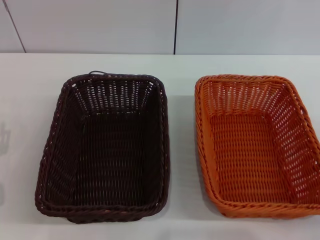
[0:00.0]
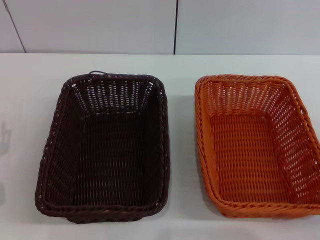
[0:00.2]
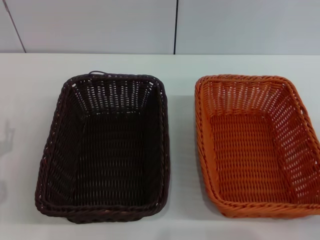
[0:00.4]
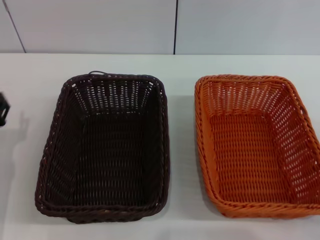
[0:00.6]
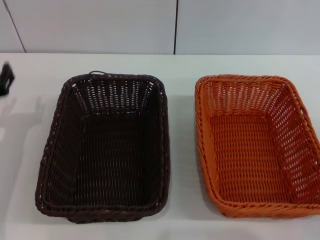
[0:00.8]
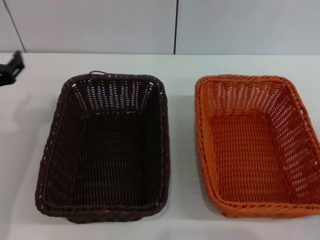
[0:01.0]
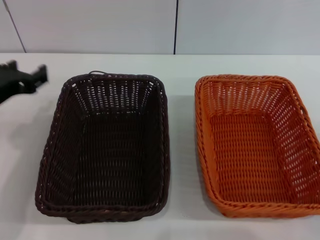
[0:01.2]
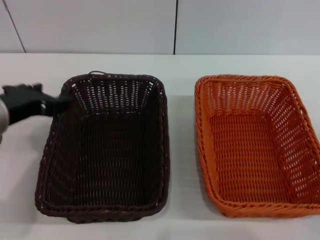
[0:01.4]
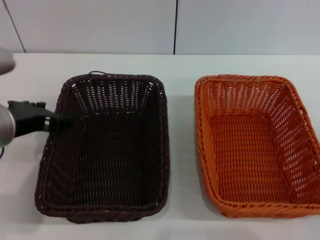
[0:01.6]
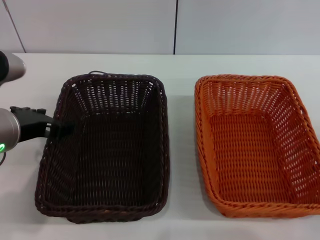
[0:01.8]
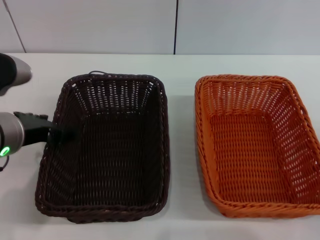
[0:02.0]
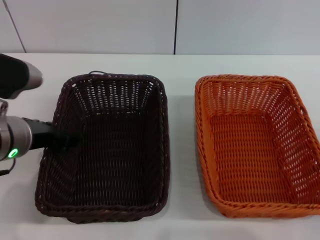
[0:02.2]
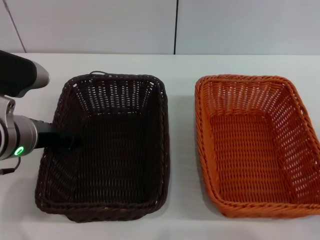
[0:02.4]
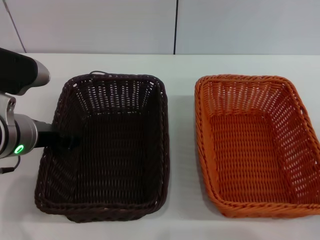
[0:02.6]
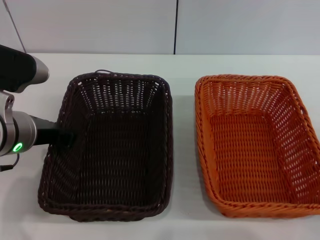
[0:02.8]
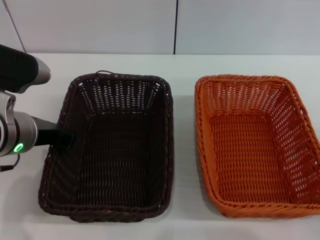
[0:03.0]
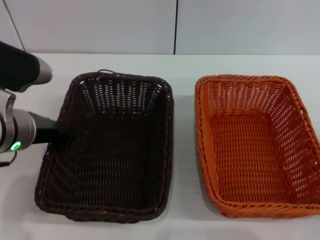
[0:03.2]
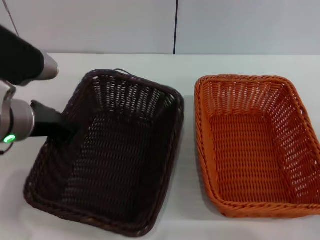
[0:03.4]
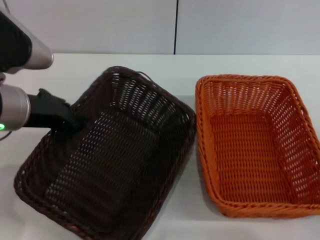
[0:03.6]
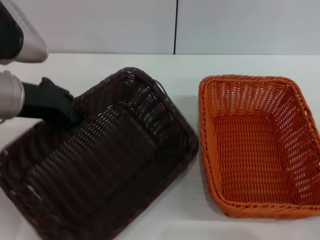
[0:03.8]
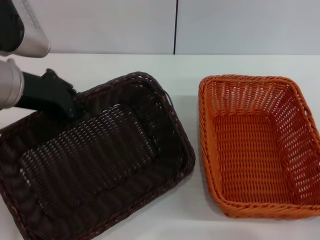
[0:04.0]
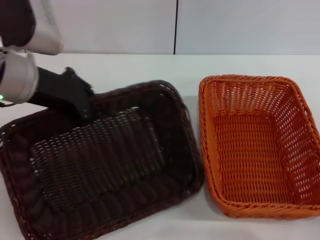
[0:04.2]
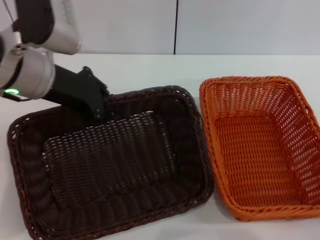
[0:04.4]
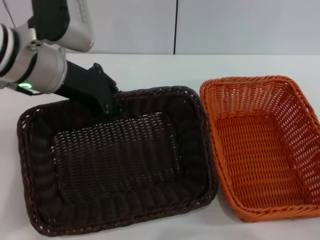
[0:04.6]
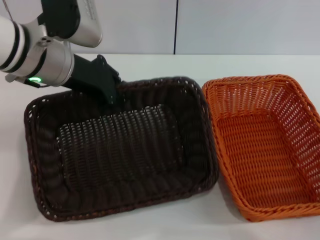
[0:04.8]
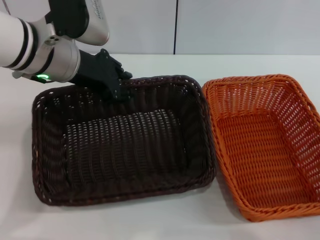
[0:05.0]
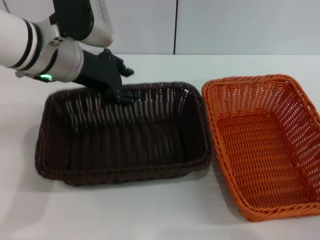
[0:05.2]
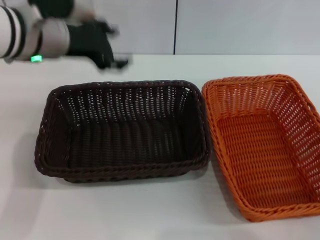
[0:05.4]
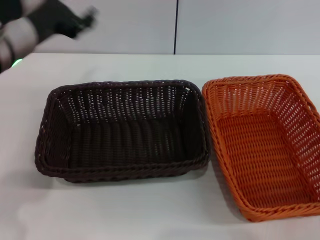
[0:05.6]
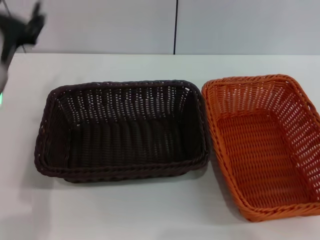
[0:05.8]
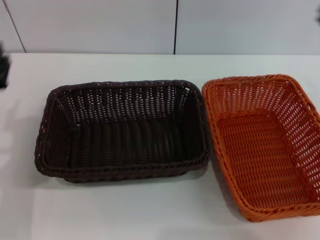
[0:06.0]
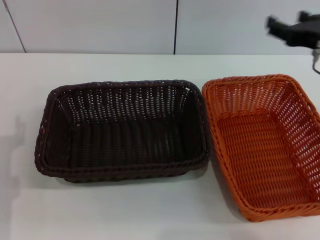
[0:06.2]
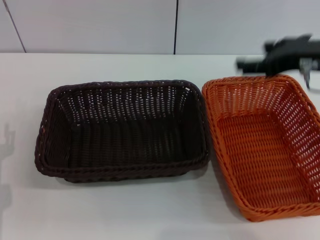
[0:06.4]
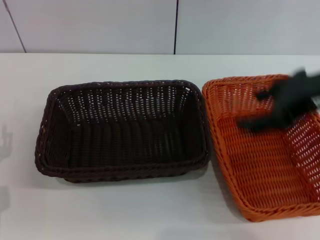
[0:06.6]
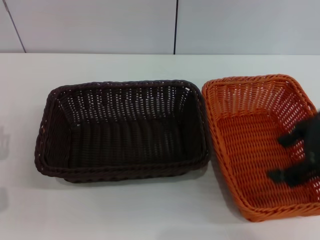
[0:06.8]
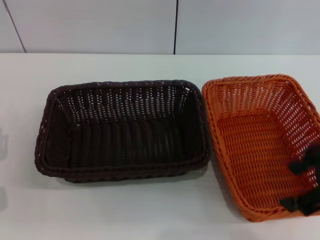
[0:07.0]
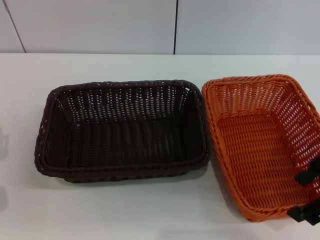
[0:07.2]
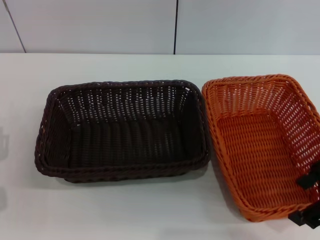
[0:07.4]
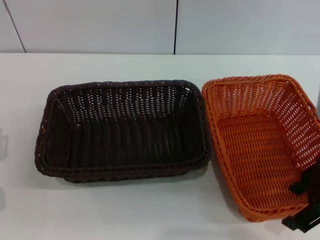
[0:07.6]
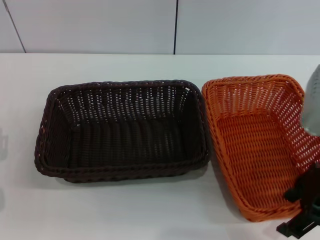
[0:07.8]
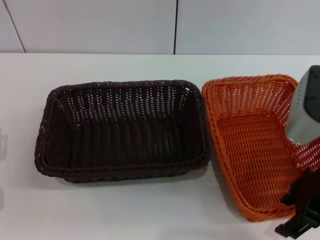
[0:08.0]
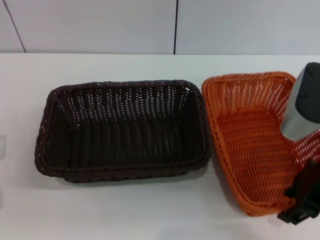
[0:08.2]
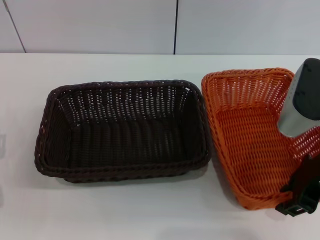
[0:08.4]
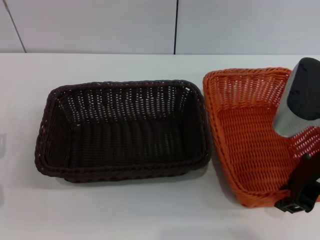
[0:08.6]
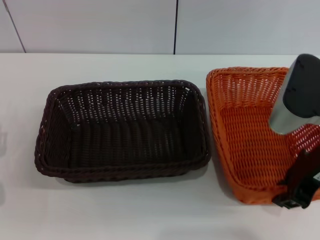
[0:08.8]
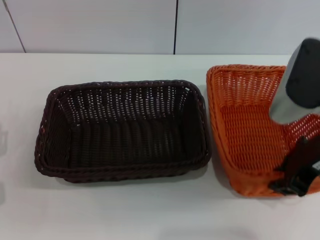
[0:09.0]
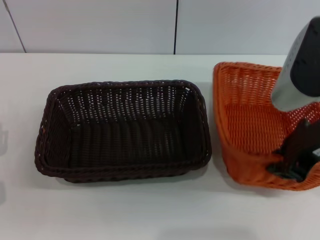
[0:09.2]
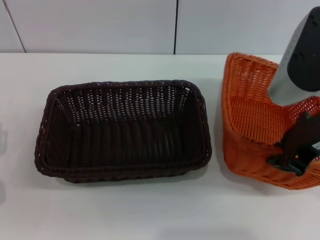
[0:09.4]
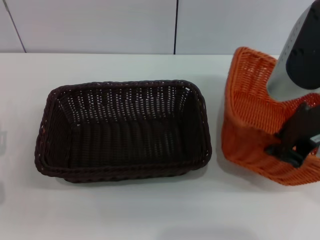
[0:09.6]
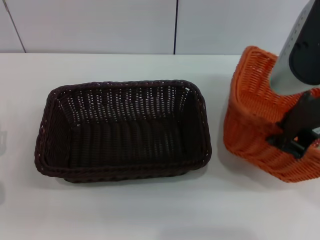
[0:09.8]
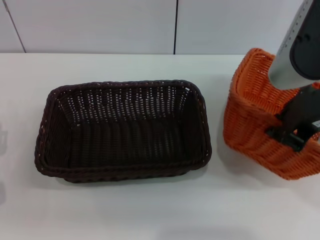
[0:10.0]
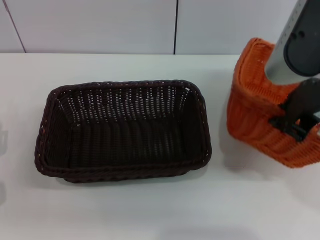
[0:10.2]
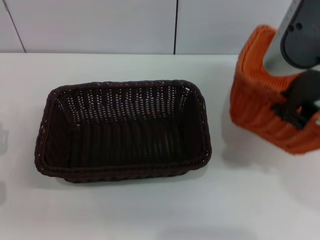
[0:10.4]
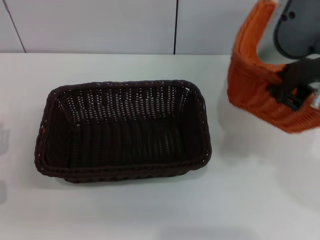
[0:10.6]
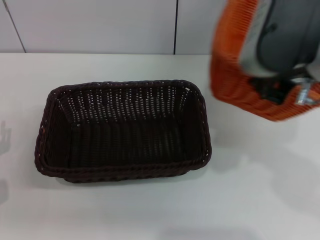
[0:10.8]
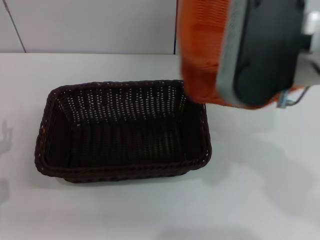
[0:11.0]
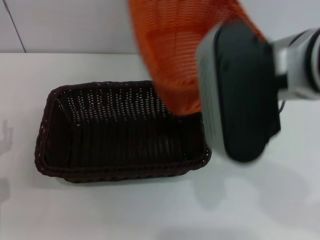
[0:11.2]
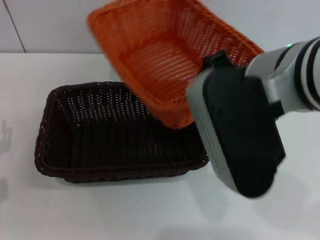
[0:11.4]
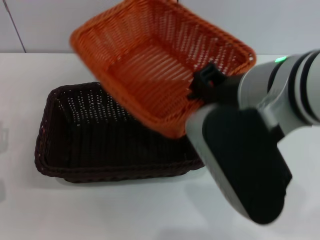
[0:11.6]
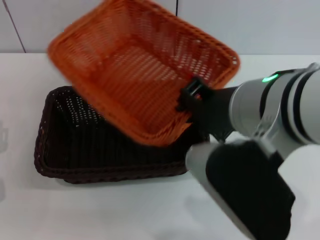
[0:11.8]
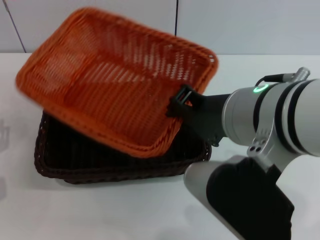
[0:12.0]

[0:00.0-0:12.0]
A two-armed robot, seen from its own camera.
Step, 0:00.0 to 0:03.8: Pick up the dark basket with the left gripper.
Step, 0:04.0 to 0:05.0: Place the dark basket in the center of view with the left gripper.
Step, 0:05.4 to 0:09.8: Pick up the light basket with the right gripper.
0:00.0 to 0:01.6: The left gripper heads upward and to the right, covering some 20 cm.
0:01.6 to 0:03.0: The left gripper closes its fingers.
0:03.0 to 0:04.4: The left gripper shifts some 10 cm upward and forward.
0:04.4 to 0:06.0: The right gripper shifts roughly 15 cm upward and forward, while the left gripper moves downward, backward and to the left, roughly 15 cm, and opens its fingers.
0:06.0 to 0:07.6: The right gripper heads upward and backward, covering roughly 10 cm; the left gripper is displaced downward by about 5 cm.
0:07.6 to 0:09.0: The right gripper closes.
0:09.0 to 0:10.4: The right gripper is displaced upward by roughly 5 cm.
0:10.4 to 0:12.0: The right gripper moves to the left, roughly 10 cm.

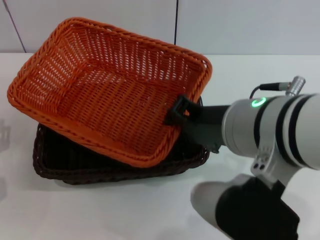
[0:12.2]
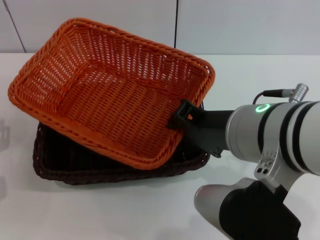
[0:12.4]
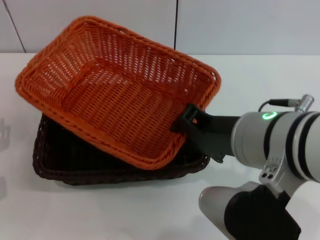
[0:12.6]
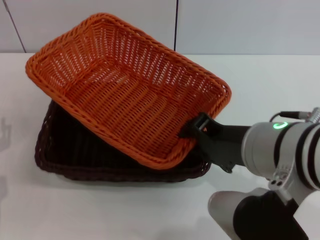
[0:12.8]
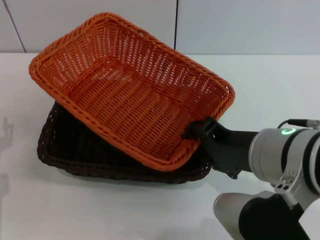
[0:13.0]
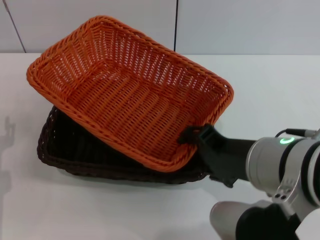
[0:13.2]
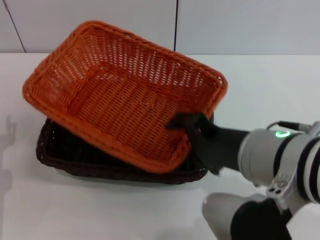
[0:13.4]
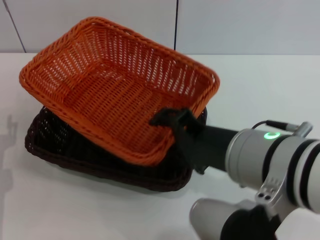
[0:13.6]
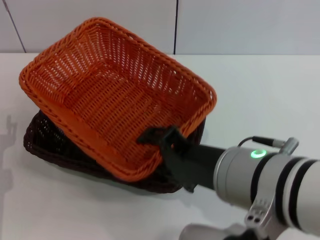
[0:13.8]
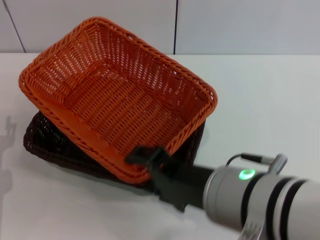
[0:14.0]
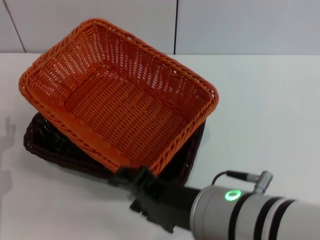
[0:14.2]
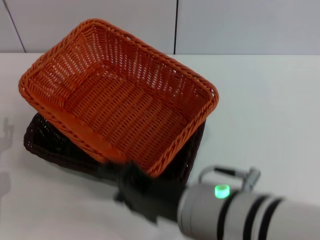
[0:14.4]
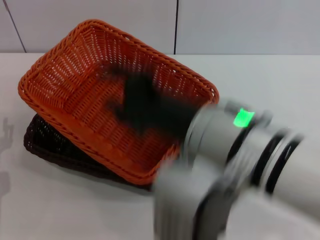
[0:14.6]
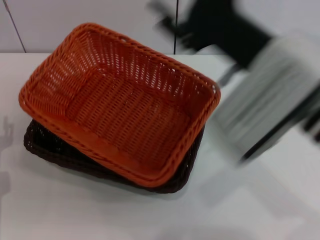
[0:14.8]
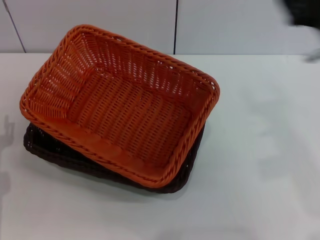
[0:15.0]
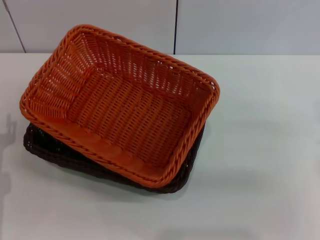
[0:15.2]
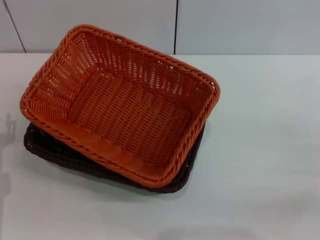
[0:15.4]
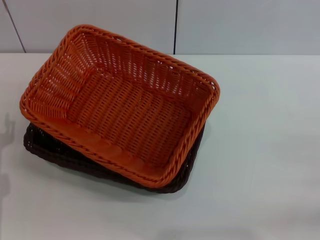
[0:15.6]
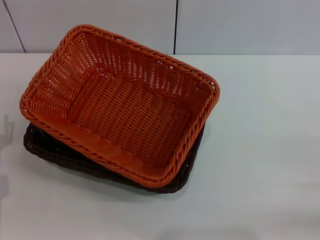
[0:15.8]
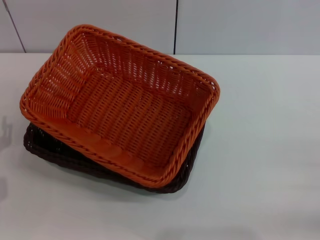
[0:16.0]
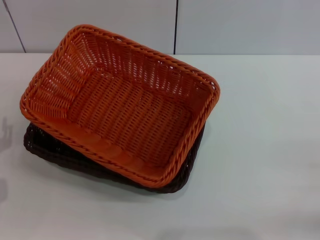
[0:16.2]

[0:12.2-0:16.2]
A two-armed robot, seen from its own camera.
Step, 0:12.2 to 0:14.4: Place the light basket on the dark basket with the right gripper.
0:12.2 to 0:13.6: The right gripper opens its fingers.
0:13.6 to 0:14.8: The right gripper shifts by some 5 cm.
0:14.8 to 0:16.2: The right gripper is displaced to the right and downward by some 30 cm.

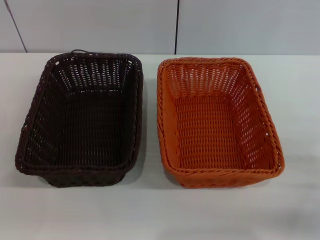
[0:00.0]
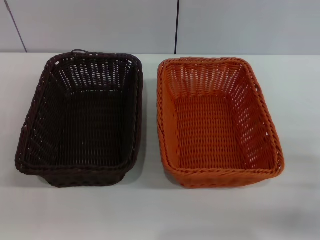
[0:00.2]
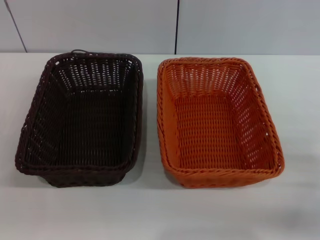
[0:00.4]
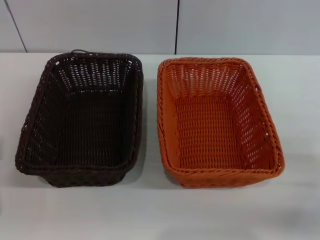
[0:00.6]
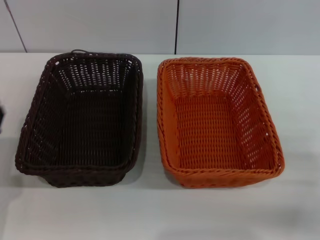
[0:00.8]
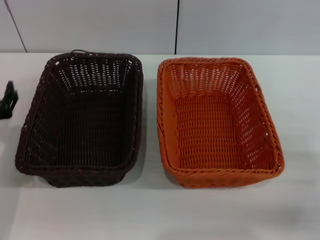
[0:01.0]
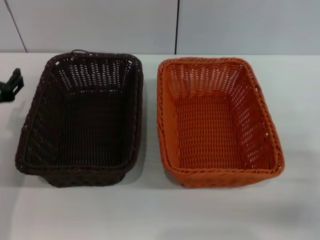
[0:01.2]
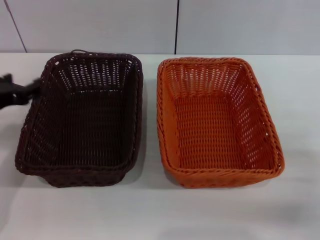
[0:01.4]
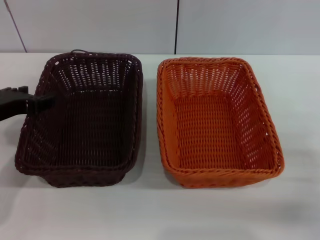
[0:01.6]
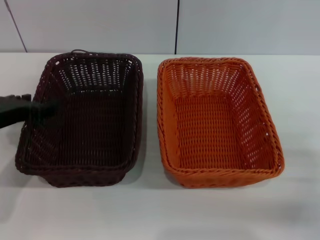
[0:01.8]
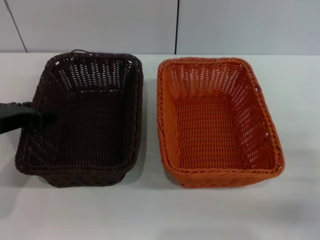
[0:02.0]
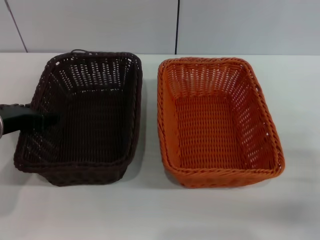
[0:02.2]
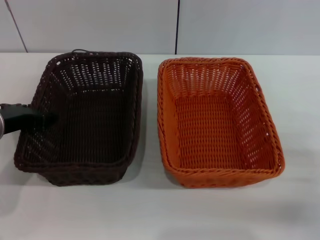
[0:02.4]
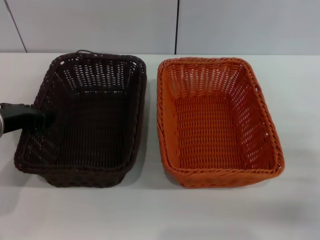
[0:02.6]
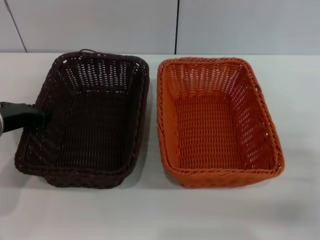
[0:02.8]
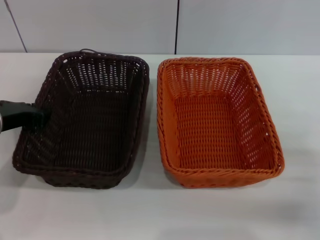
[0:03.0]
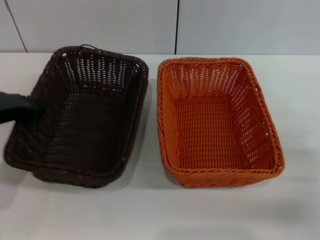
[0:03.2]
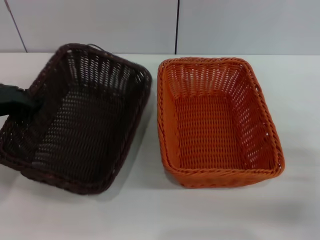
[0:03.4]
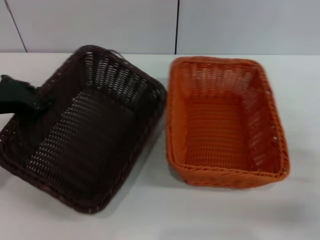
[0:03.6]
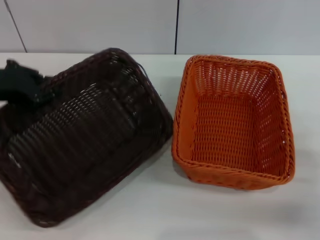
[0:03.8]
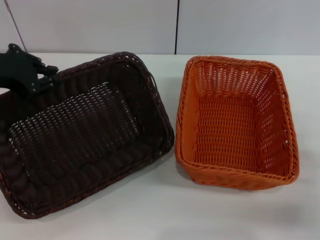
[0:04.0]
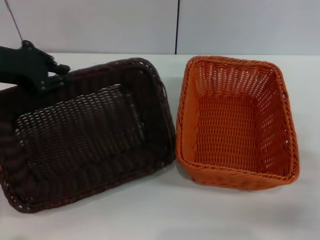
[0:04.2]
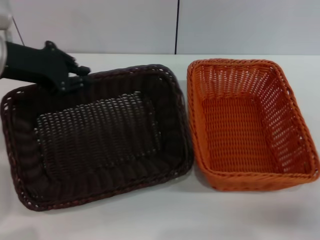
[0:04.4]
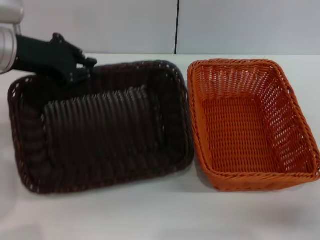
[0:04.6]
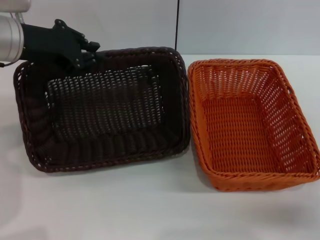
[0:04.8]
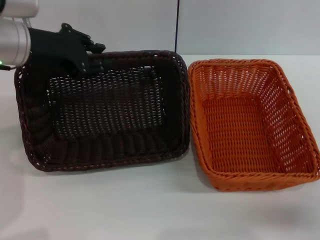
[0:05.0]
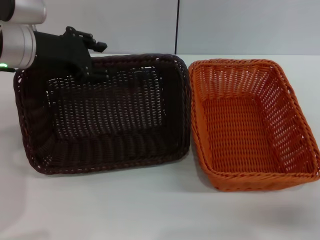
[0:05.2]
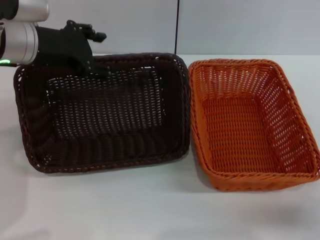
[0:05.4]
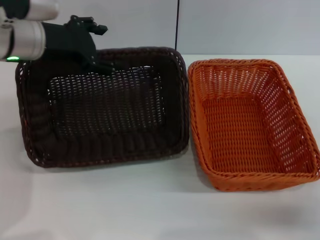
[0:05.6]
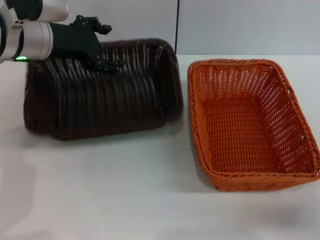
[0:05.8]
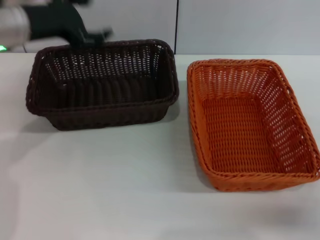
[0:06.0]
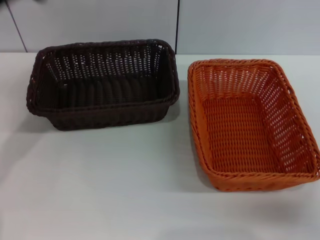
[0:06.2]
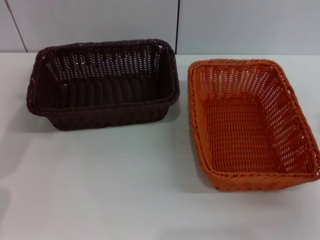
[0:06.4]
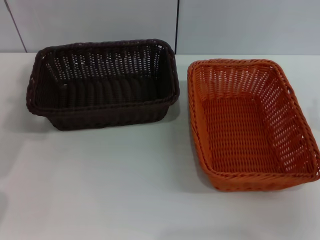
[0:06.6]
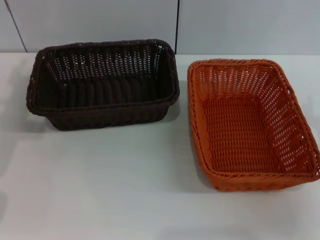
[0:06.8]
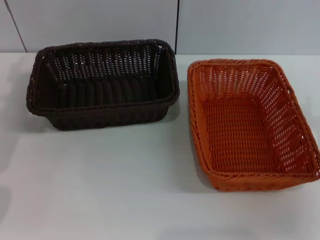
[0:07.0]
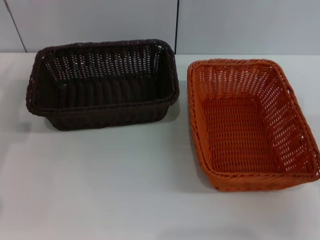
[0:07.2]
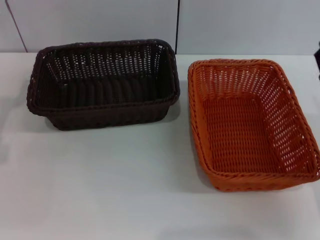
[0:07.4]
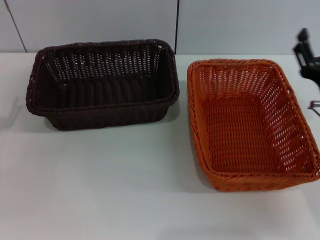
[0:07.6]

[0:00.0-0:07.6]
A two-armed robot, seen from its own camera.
Step, 0:00.0 to 0:03.8: Pick up the dark basket with the left gripper.
Step, 0:04.0 to 0:05.8: Place the dark basket in the center of view with the left gripper.
0:00.0 to 0:01.6: The left gripper moves upward and forward, roughly 15 cm.
0:01.6 to 0:03.0: The left gripper closes its fingers.
0:03.0 to 0:04.6: The left gripper is displaced upward and forward by approximately 10 cm.
0:04.6 to 0:06.0: The left gripper opens its fingers.
0:06.0 to 0:07.6: The right gripper travels forward, to the left and upward by some 10 cm. The left gripper heads downward, to the left and backward, covering about 20 cm.
